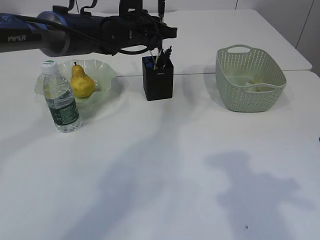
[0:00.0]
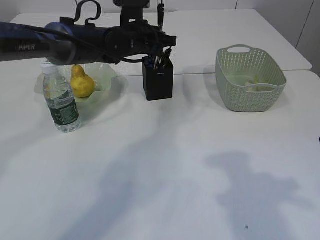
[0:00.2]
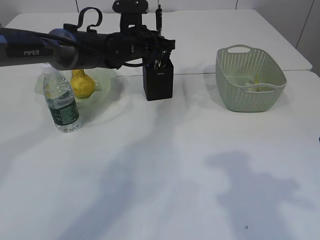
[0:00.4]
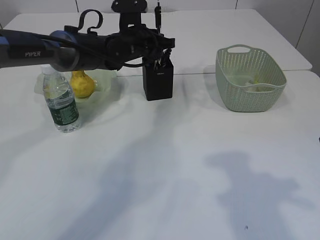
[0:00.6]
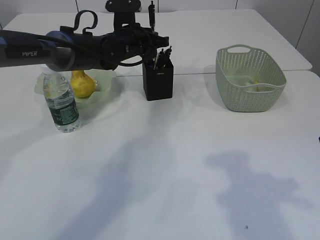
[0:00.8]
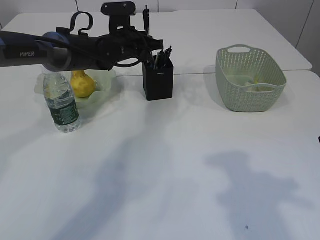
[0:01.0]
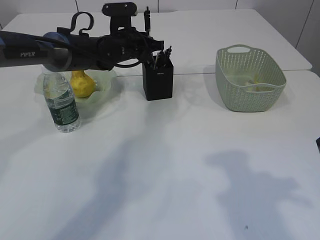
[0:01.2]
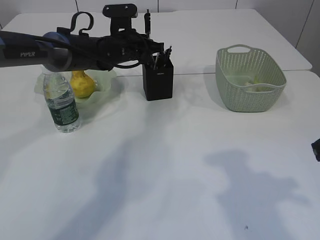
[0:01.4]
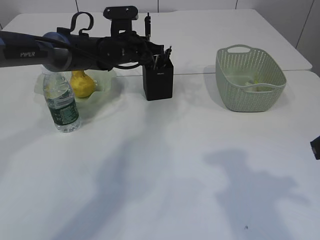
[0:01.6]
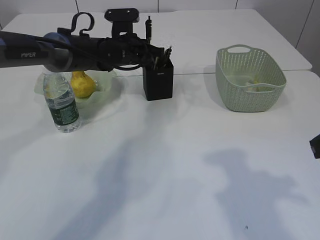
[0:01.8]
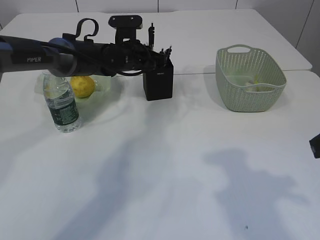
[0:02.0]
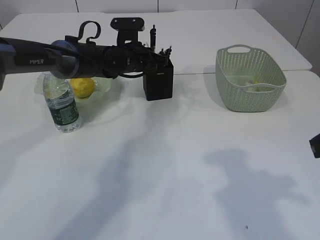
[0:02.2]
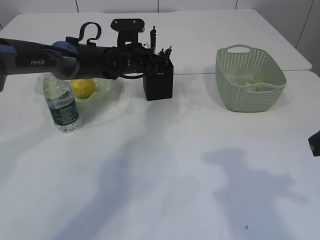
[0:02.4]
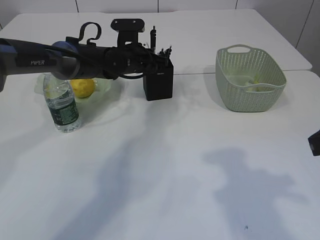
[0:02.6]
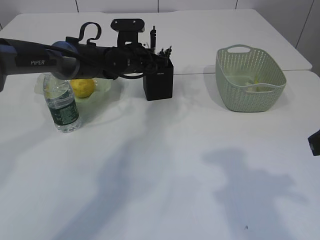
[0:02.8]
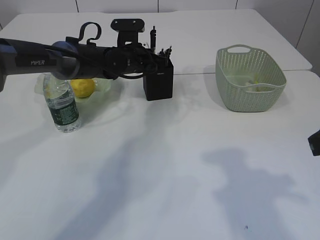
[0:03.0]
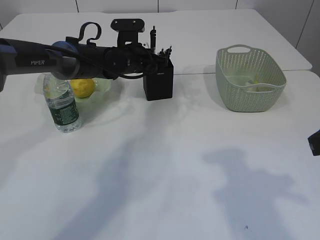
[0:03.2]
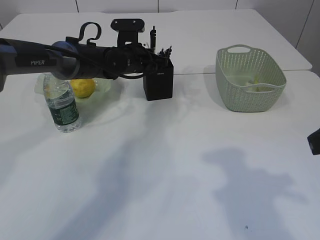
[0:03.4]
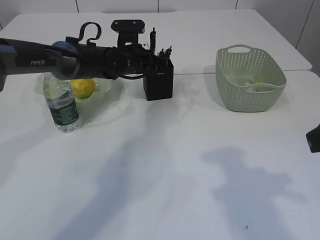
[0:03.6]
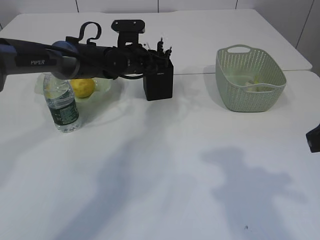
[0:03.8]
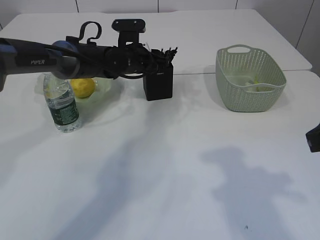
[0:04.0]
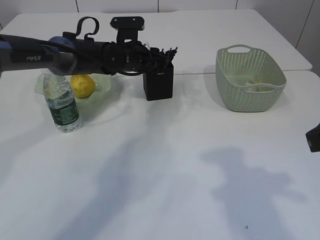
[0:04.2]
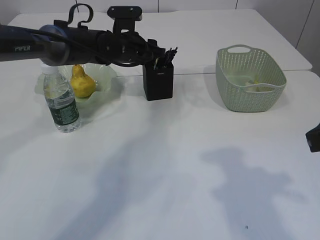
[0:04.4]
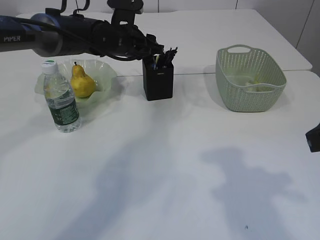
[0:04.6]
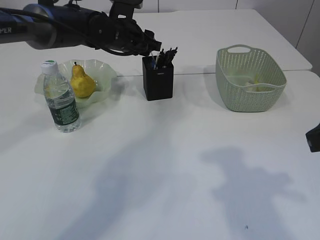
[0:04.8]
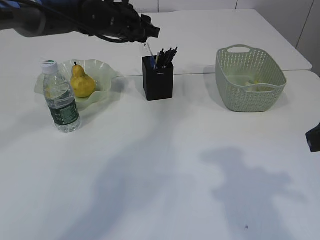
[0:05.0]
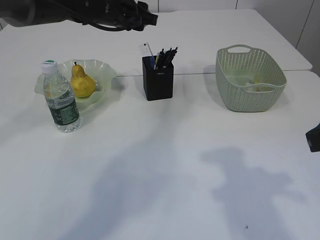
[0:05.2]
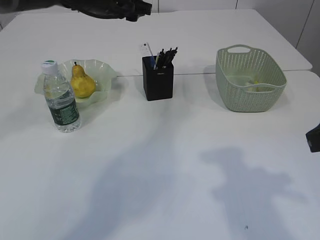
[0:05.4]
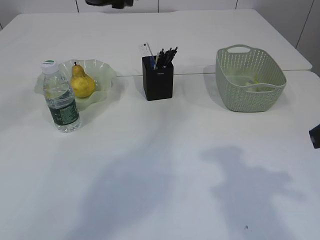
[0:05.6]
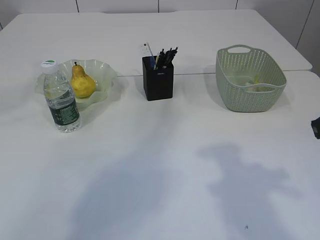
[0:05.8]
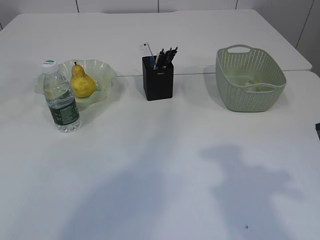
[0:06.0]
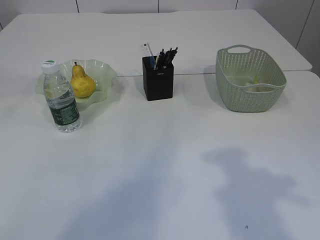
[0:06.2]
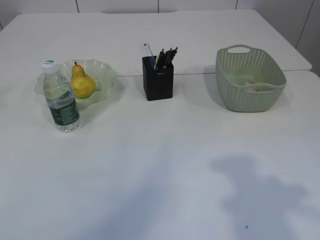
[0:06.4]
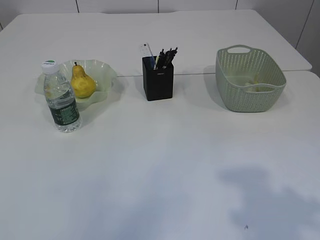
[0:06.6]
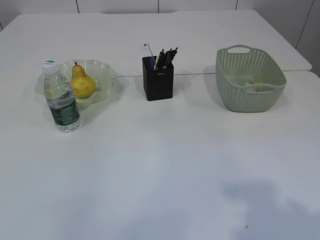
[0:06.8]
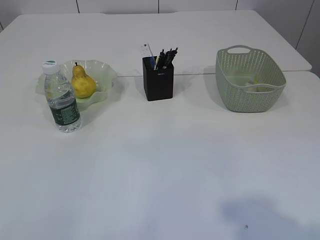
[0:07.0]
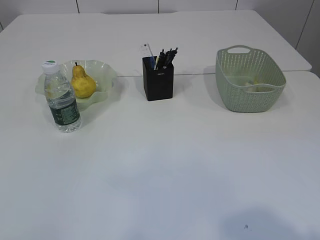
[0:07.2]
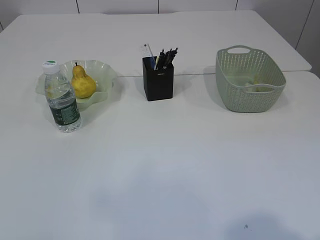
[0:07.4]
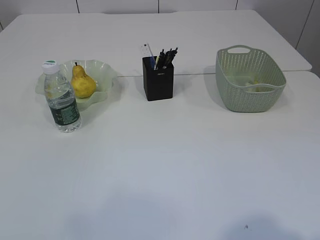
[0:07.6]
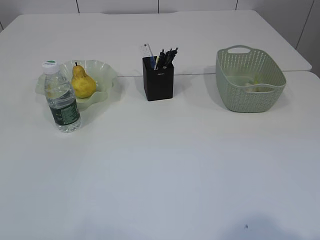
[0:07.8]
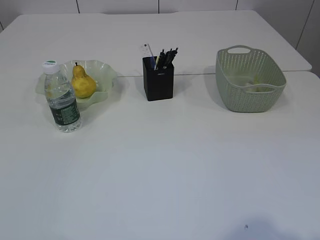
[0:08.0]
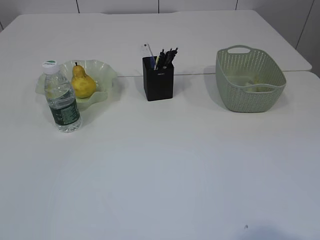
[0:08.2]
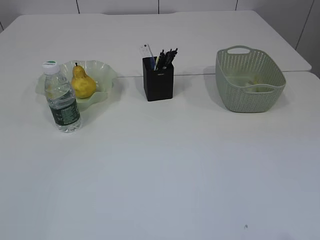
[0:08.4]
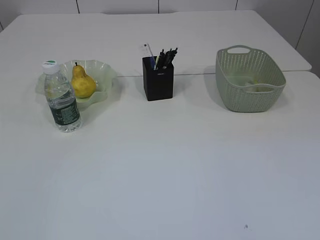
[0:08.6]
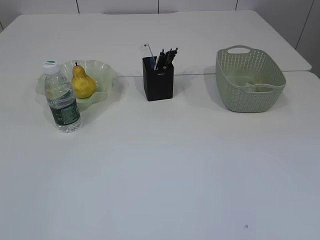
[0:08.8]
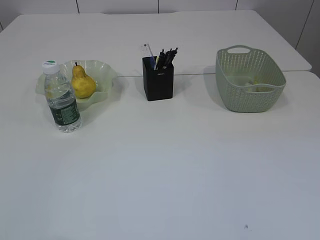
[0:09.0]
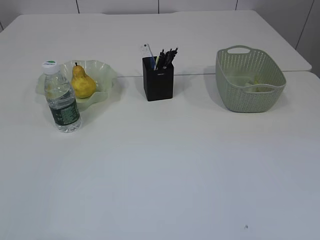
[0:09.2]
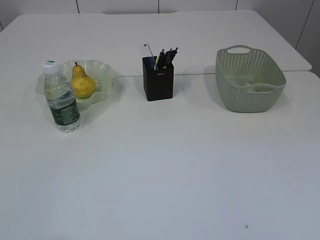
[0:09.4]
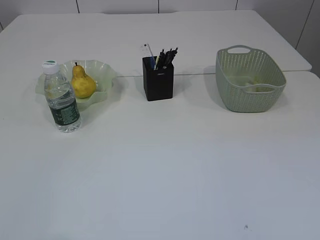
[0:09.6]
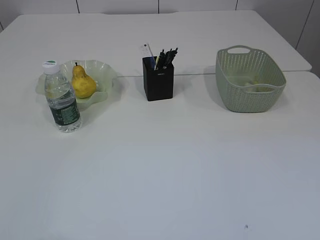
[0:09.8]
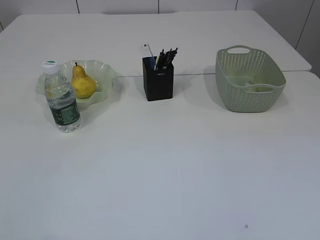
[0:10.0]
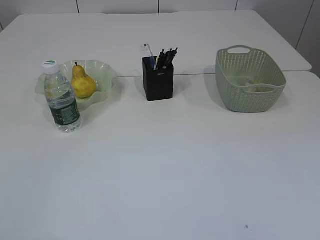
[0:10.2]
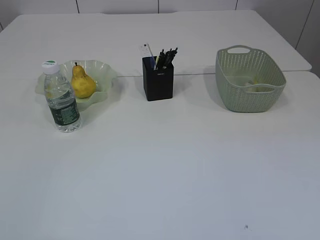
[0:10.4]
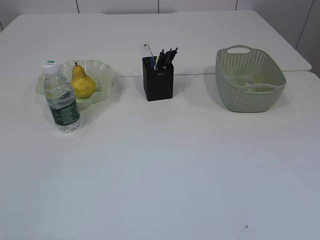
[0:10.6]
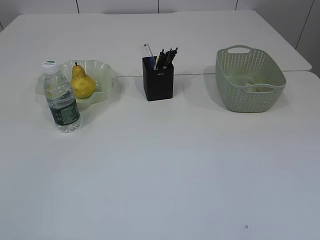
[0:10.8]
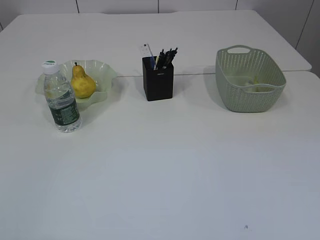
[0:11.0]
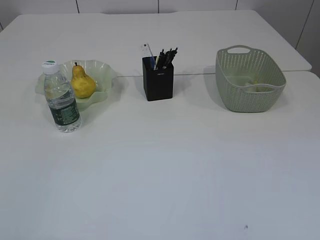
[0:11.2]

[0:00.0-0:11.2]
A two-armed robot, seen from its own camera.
Step, 0:00.0 to 0:05.0: Place the pen into the pen holder.
0:00.0 to 0:01.6: The left gripper ends up some 5 cm from where it was.
0:01.6 to 0:03.2: The grippers move only a little.
0:03.2 to 0:04.8: The left gripper goes roughly 5 cm upward, and opens its fingers.
0:04.8 to 0:06.4: The left gripper is displaced upward, backward and to the left by some 40 cm. Meanwhile the right gripper ends up approximately 5 cm from where it was.
0:06.4 to 0:08.0: The left gripper moves backward, approximately 35 cm. The right gripper travels backward by some 10 cm.

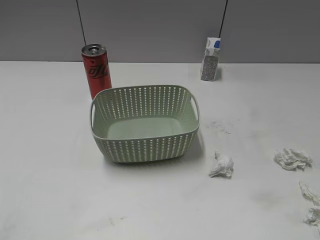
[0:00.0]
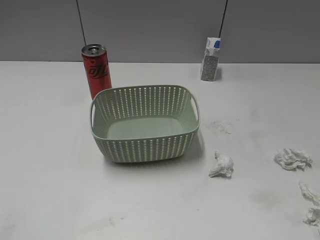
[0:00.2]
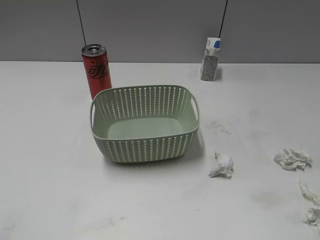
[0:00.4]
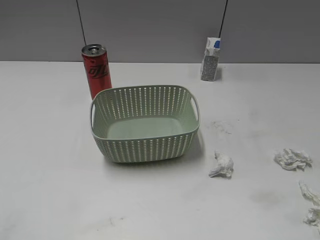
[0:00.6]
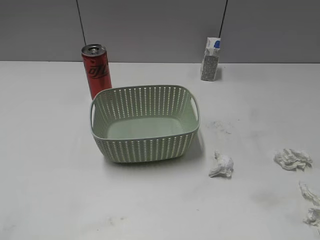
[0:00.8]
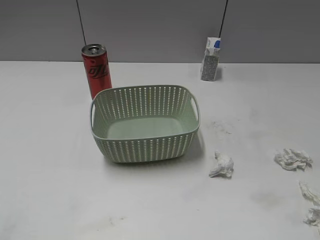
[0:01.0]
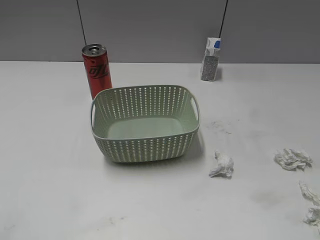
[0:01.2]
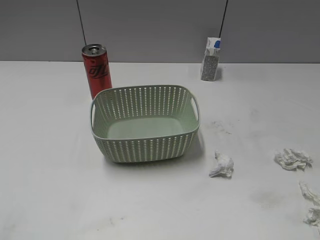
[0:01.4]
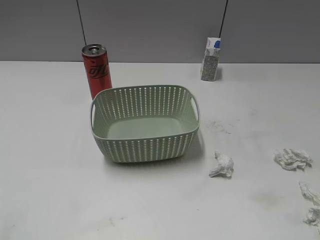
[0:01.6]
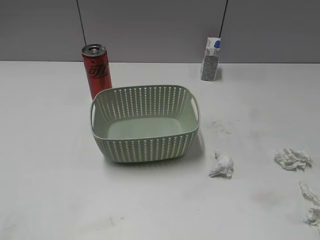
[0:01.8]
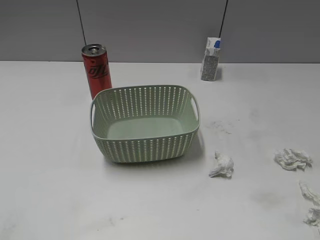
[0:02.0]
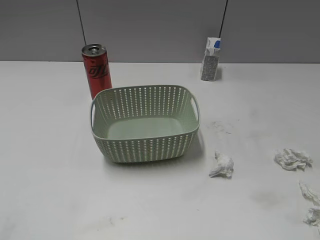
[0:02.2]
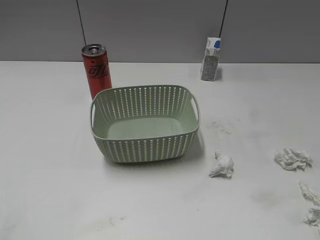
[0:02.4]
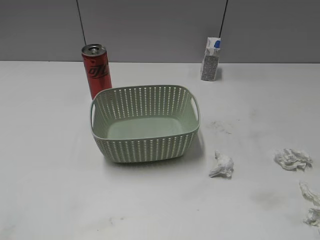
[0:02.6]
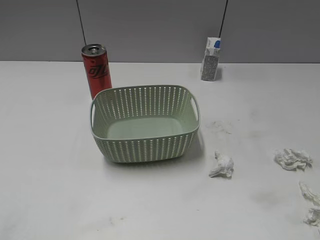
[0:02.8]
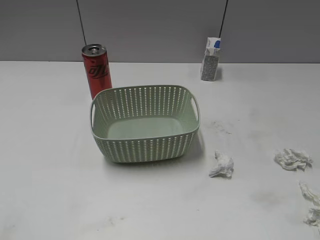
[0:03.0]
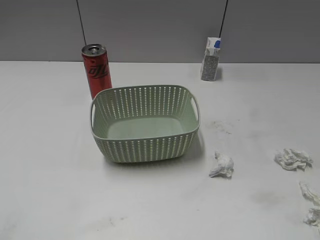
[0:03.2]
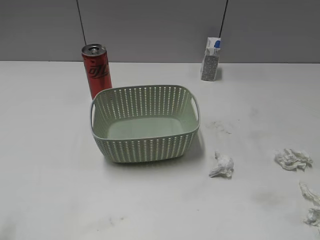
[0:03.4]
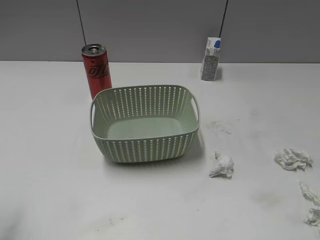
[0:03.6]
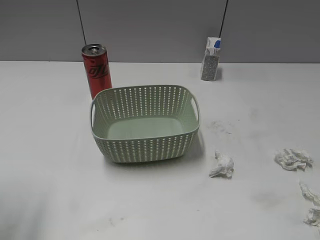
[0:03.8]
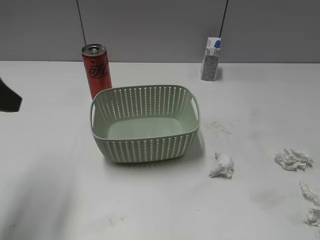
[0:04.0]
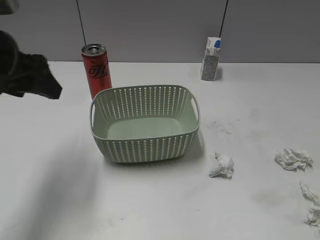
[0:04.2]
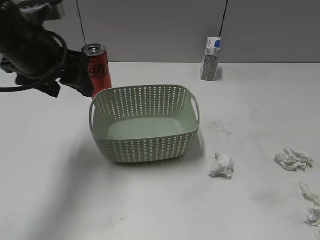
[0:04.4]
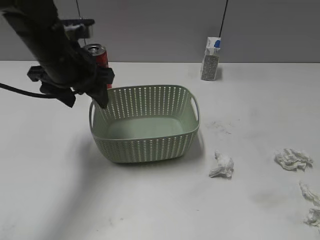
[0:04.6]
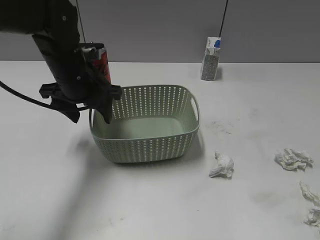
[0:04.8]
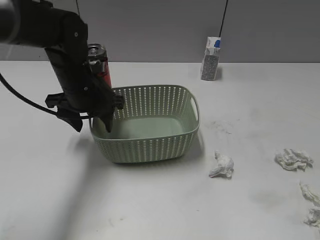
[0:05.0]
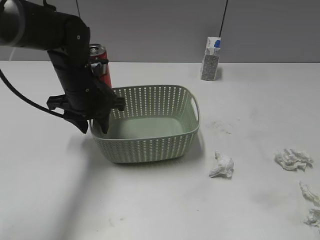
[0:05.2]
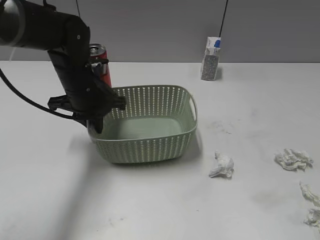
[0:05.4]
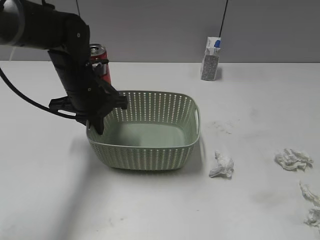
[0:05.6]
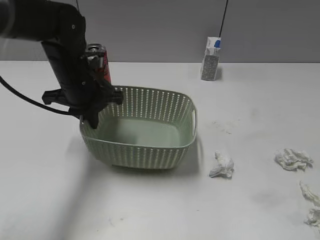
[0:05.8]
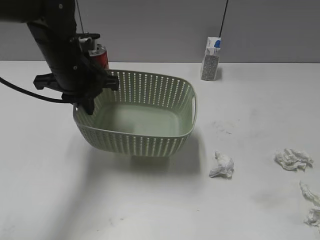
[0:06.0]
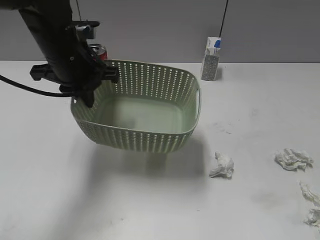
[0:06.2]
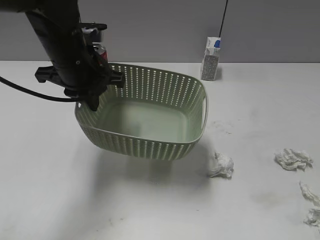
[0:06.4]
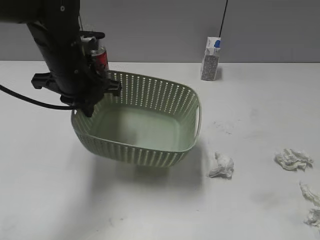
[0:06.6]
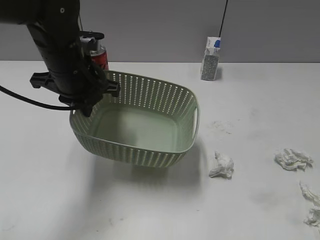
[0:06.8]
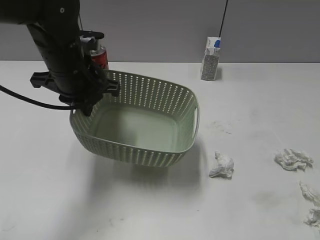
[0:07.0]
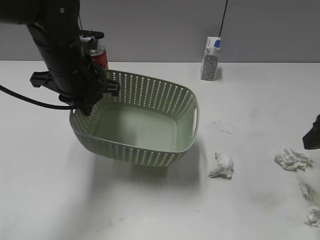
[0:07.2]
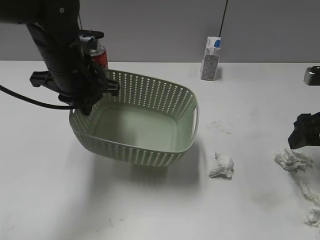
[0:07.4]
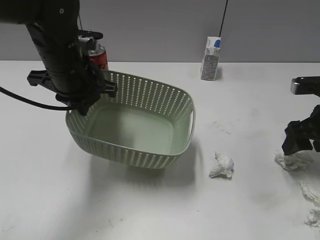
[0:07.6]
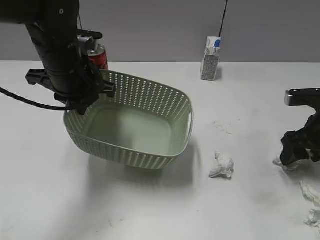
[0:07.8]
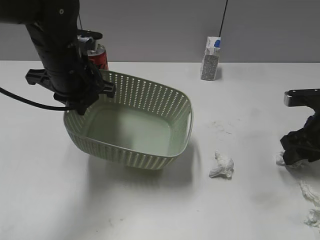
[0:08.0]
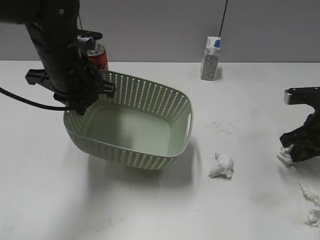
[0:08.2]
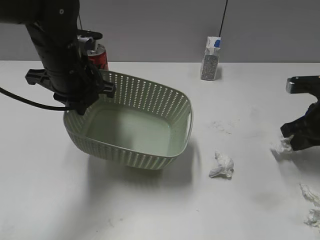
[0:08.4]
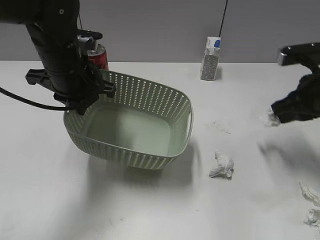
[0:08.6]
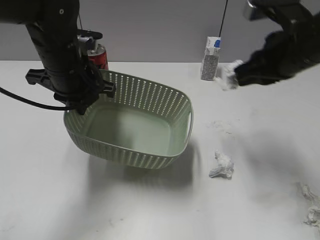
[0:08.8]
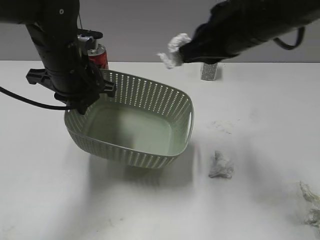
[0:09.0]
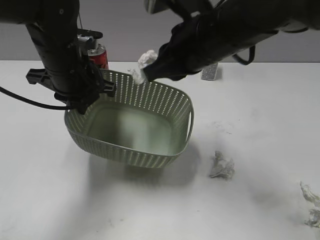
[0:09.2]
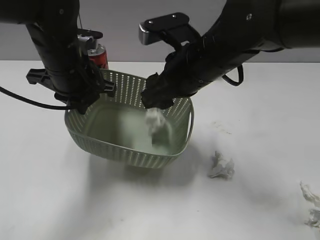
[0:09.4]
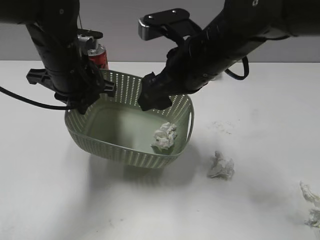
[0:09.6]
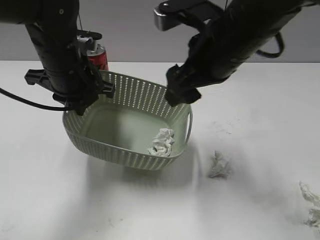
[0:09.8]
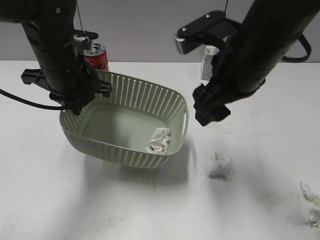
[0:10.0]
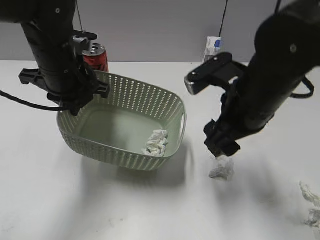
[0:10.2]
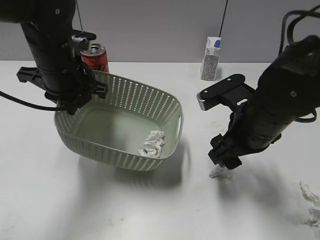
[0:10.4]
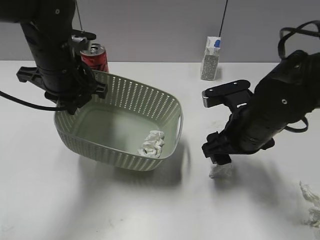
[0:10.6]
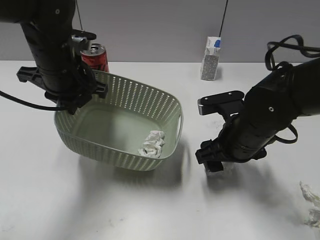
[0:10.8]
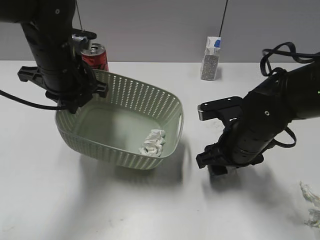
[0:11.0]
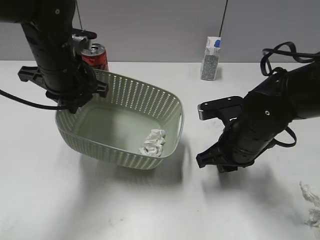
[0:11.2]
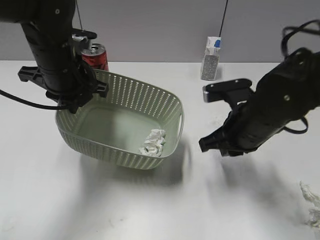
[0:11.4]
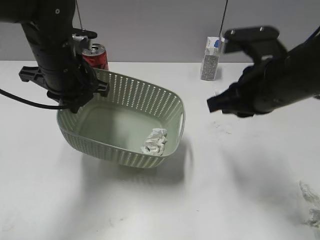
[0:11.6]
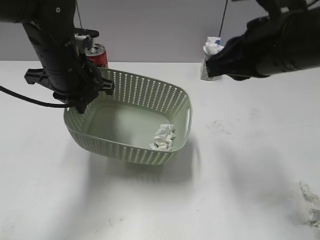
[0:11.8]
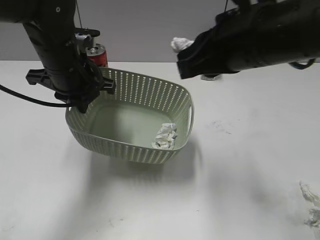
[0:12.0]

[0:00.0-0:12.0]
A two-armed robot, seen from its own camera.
Step, 0:00.0 to 0:05.4: Grasp the basket with left gripper.
Step, 0:05.6 to 0:06.6: Lift the basket with left gripper.
Step, 0:06.8 to 0:08.2: Grasp the waste paper with right gripper.
Step, 0:08.4 to 0:09.6: Place the waste paper in the basket with right gripper.
Step, 0:09.8 to 0:11.4: Grasp the waste paper with right gripper.
0:03.0 to 0:04.4: The left gripper goes approximately 35 cm forward and to the right.
0:04.4 to 0:06.0: The left gripper moves downward, approximately 5 cm, and closes up.
0:06.0 to 0:07.6: The right gripper goes about 30 cm forward and downward.
0:07.6 to 0:09.0: The right gripper is displaced to the left and upward by roughly 25 cm, and closes its fingers.
0:09.0 to 0:10.4: The right gripper moves up and down over roughly 15 cm, changing direction 2 times, and opens its fingers.
0:10.4 to 0:12.0: The right gripper heads upward, covering about 15 cm, and closes.
